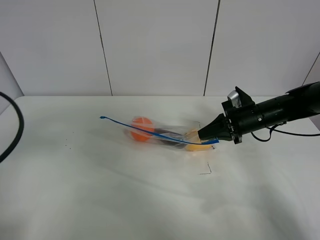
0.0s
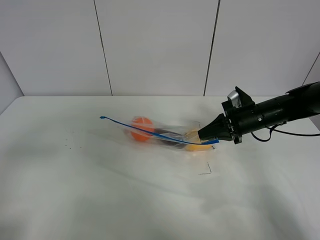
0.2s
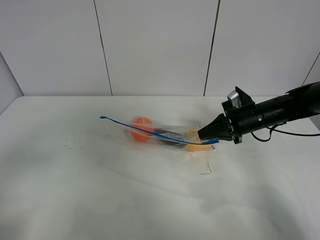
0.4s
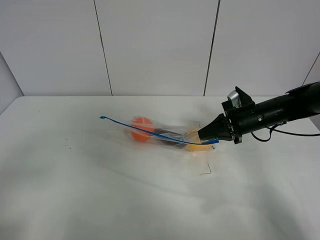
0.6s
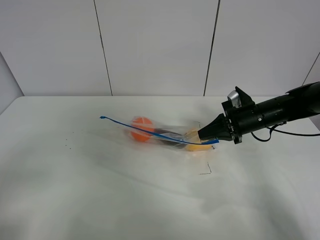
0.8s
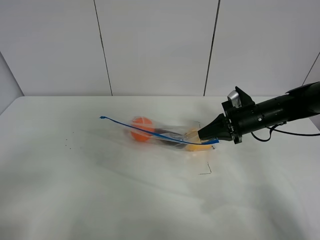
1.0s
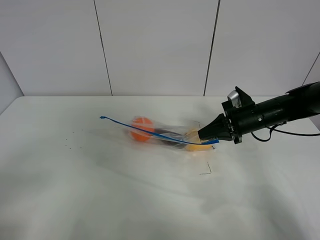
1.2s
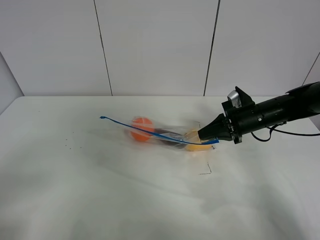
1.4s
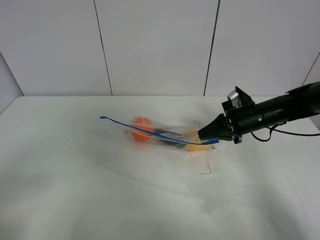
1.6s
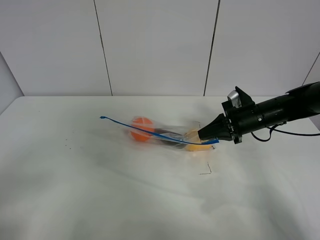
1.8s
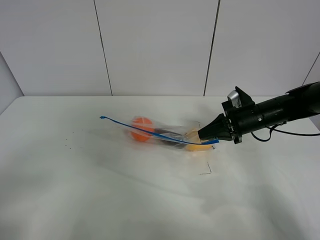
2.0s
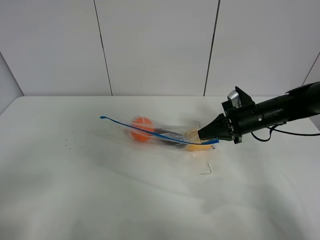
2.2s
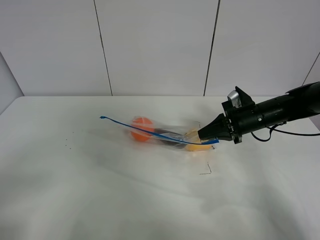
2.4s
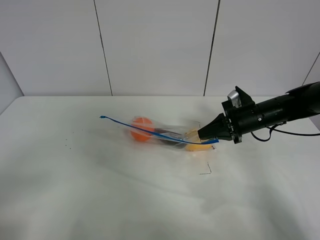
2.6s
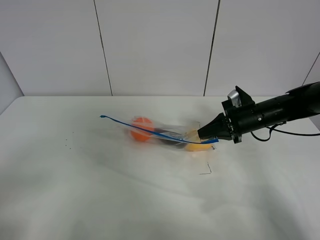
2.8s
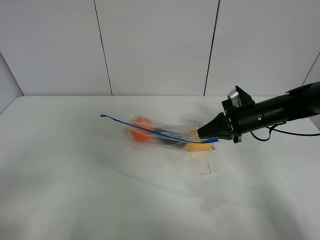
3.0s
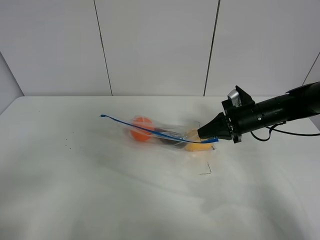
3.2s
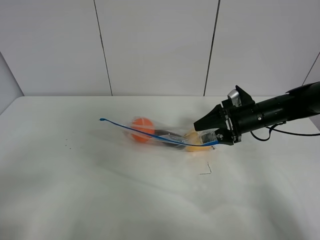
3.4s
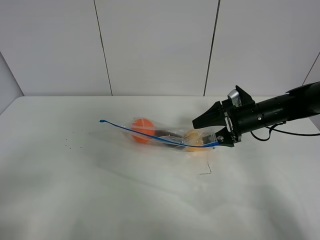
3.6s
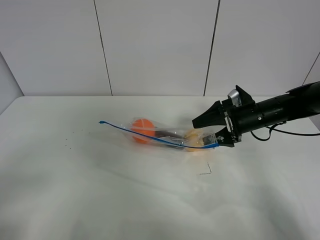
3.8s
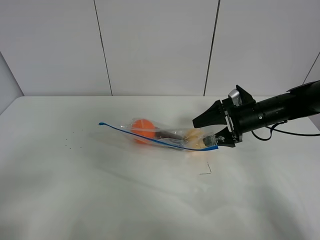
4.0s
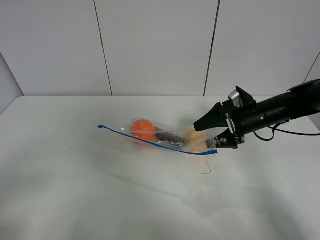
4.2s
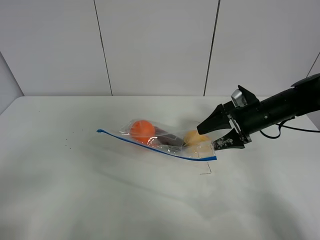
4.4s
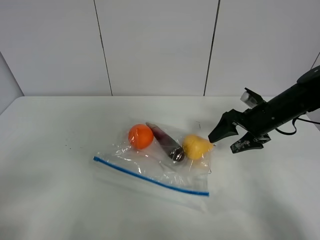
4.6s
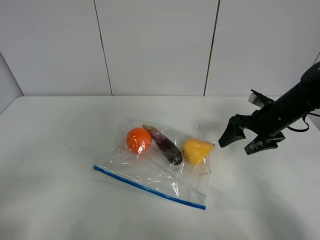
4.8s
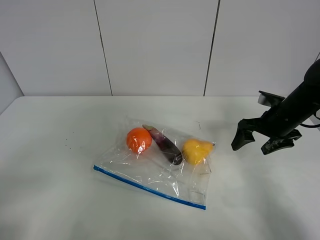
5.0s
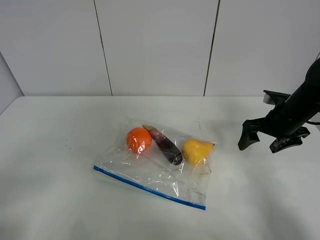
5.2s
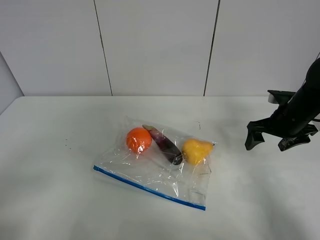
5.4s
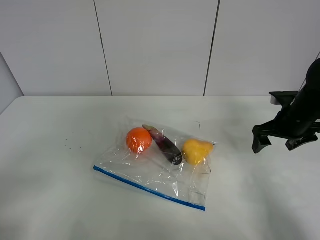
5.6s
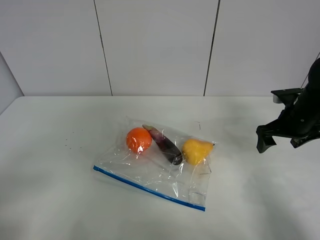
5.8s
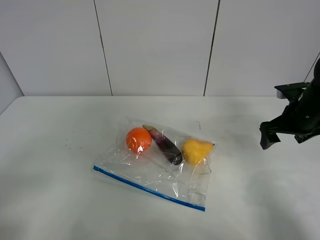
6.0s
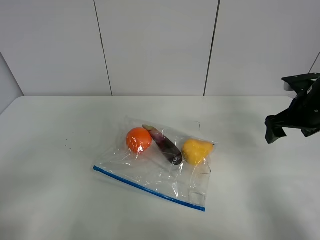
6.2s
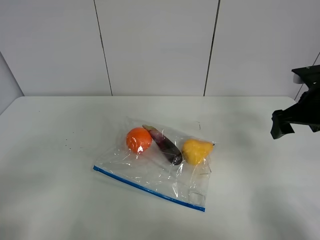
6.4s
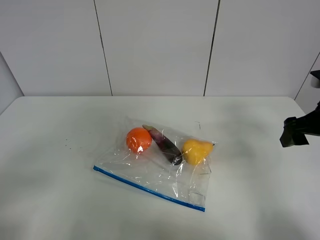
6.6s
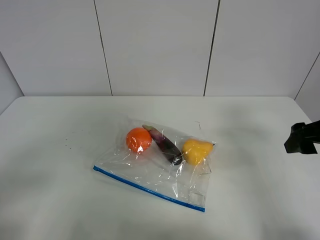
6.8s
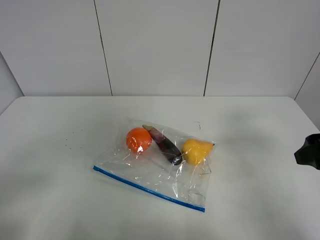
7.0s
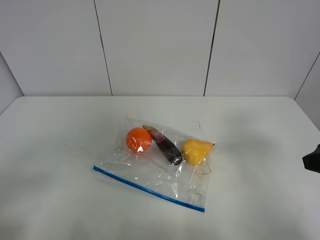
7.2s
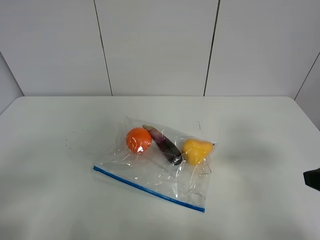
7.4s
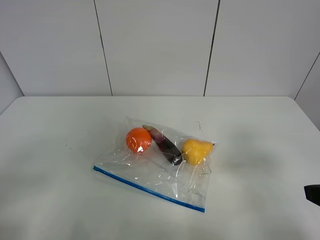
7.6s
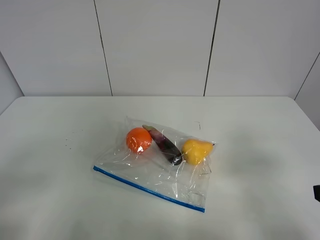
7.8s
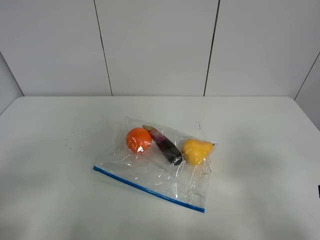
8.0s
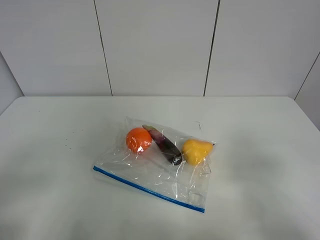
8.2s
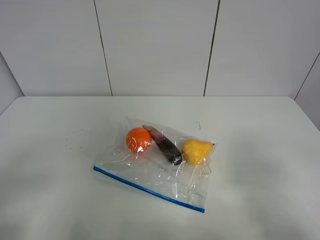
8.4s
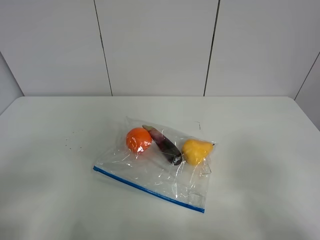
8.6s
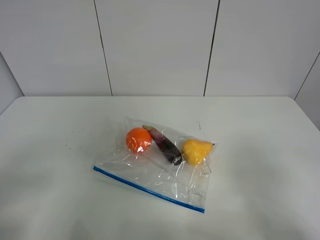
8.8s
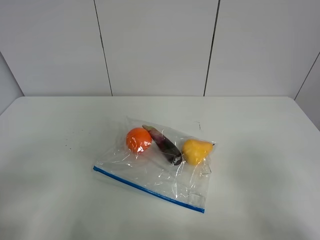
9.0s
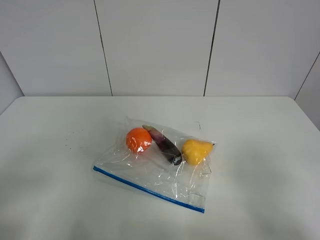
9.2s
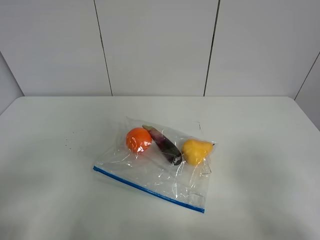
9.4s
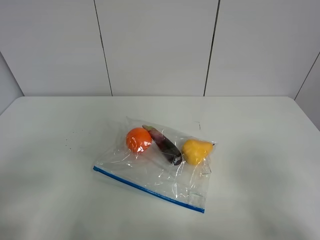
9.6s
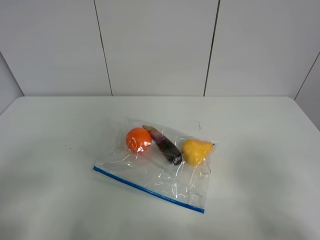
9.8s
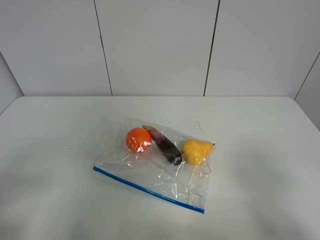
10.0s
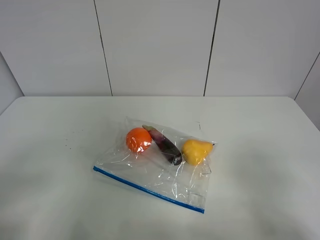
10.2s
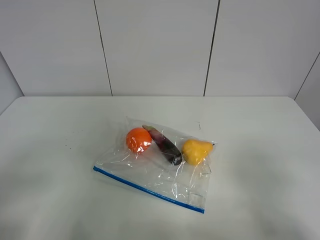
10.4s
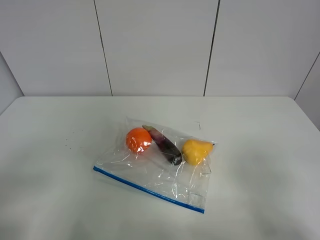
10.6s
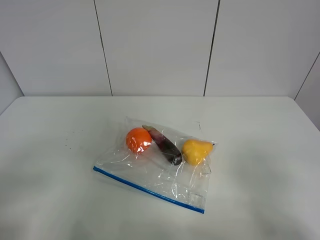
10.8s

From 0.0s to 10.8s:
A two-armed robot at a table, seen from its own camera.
Step, from 0.0s to 4.6s: Place the fruit bag with right gripper.
From 0.0s to 1.6s: The left gripper travels backward by approximately 10 cm.
From 1.6s to 3.0s: Both grippers stay put.
From 3.0s to 4.6s: The right gripper opens up.
From 4.6s to 6.2s: The right gripper heads to the right and upward, covering some 10 cm.
From 6.2s to 7.8s: The right gripper is displaced backward by approximately 25 cm.
From 9.2s to 10.8s: Neither gripper changes place.
